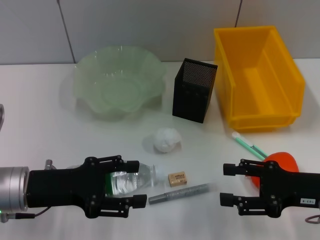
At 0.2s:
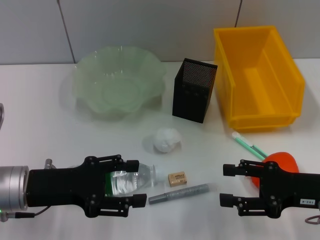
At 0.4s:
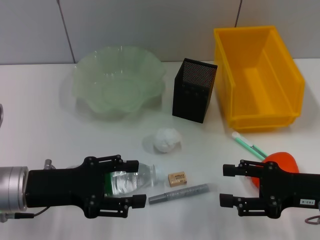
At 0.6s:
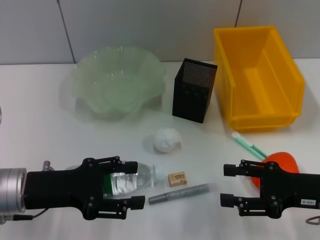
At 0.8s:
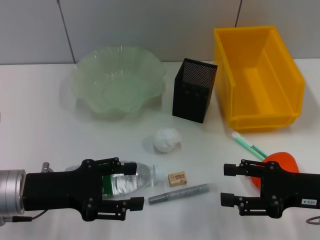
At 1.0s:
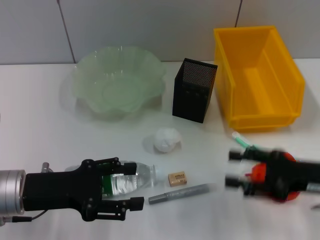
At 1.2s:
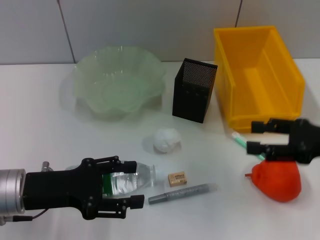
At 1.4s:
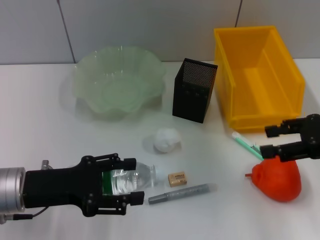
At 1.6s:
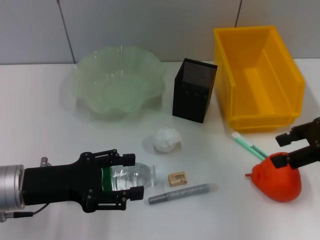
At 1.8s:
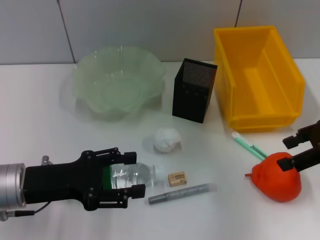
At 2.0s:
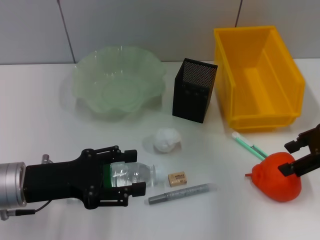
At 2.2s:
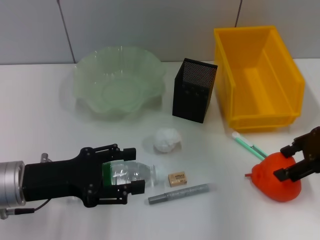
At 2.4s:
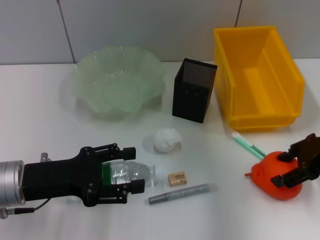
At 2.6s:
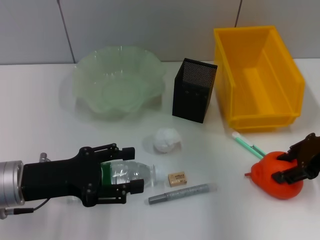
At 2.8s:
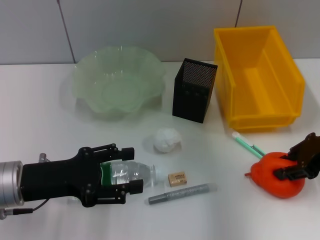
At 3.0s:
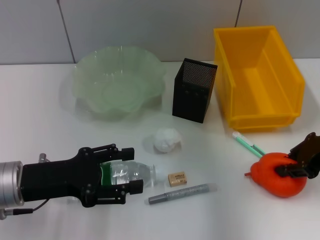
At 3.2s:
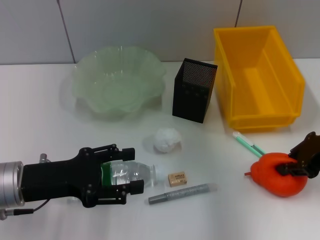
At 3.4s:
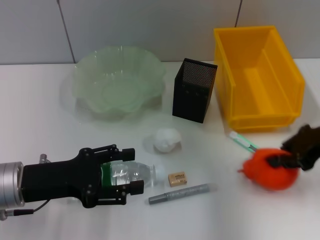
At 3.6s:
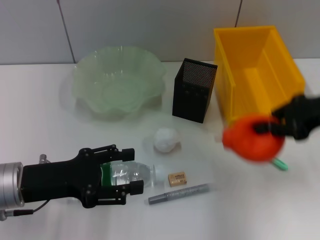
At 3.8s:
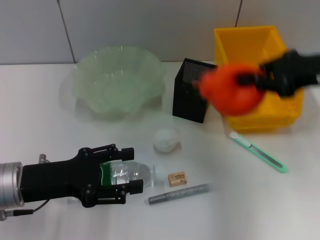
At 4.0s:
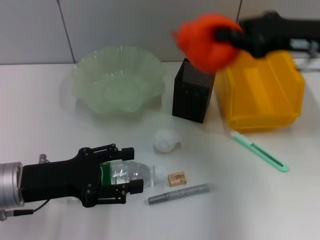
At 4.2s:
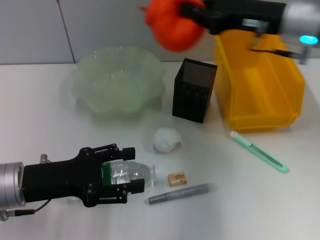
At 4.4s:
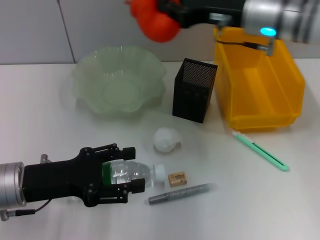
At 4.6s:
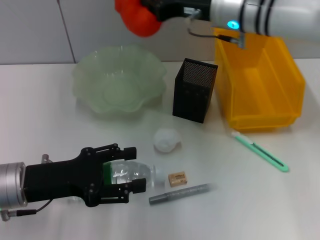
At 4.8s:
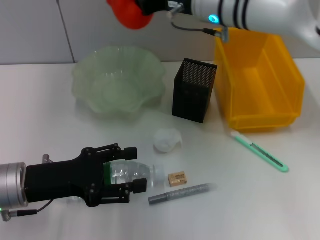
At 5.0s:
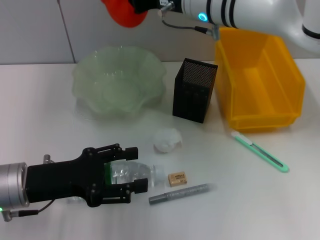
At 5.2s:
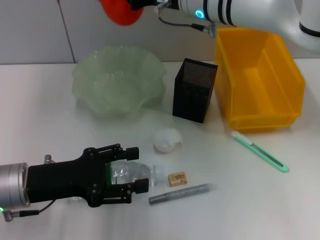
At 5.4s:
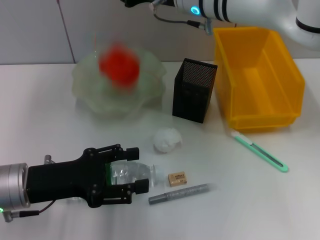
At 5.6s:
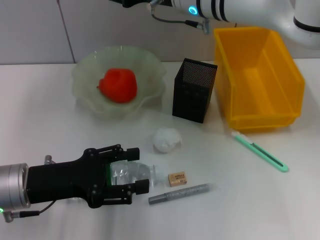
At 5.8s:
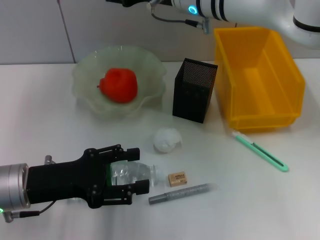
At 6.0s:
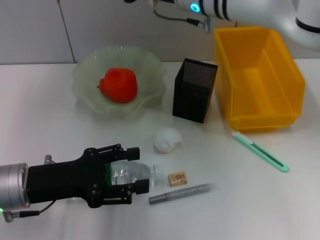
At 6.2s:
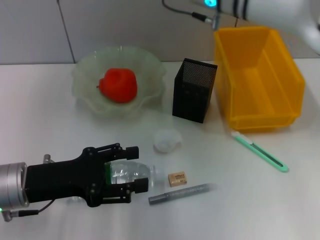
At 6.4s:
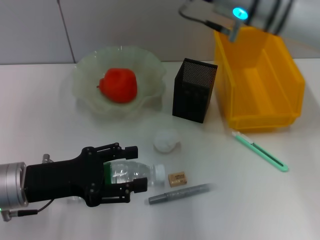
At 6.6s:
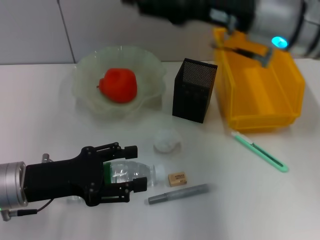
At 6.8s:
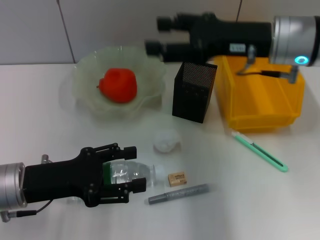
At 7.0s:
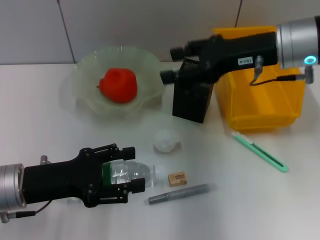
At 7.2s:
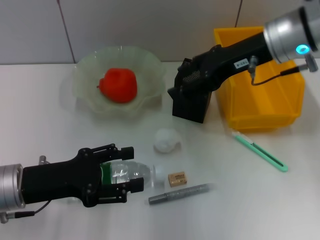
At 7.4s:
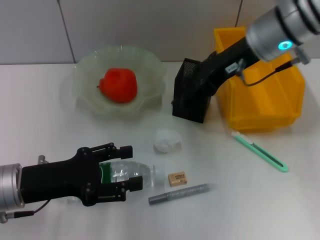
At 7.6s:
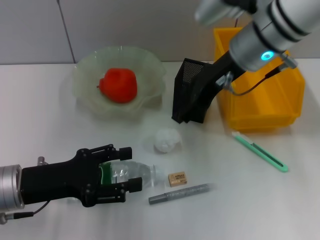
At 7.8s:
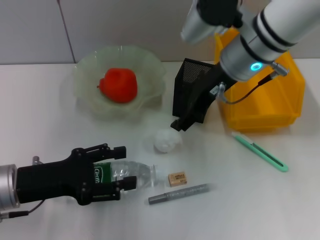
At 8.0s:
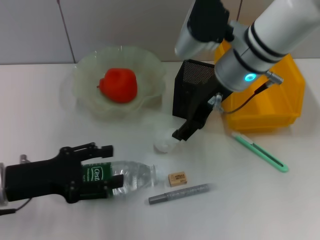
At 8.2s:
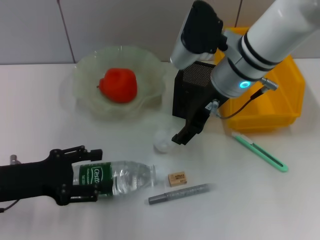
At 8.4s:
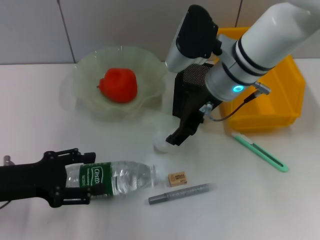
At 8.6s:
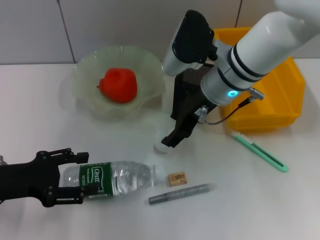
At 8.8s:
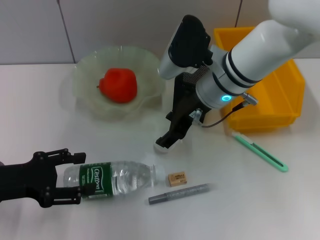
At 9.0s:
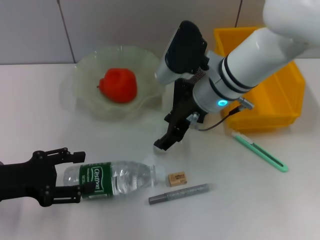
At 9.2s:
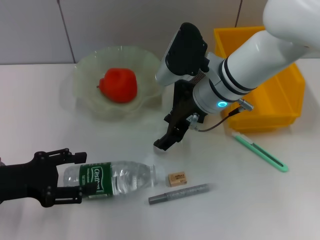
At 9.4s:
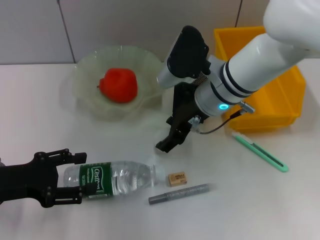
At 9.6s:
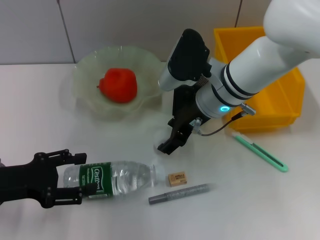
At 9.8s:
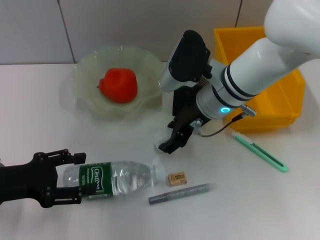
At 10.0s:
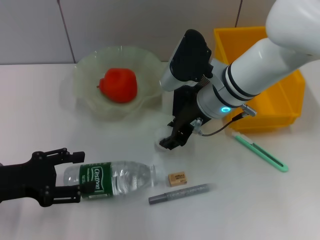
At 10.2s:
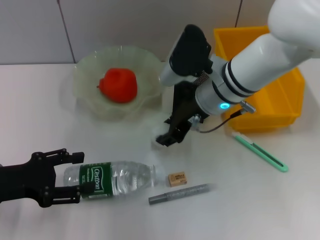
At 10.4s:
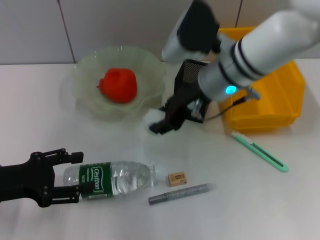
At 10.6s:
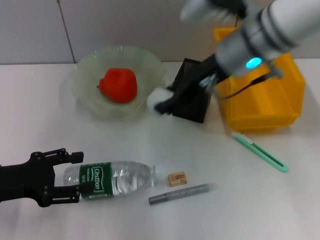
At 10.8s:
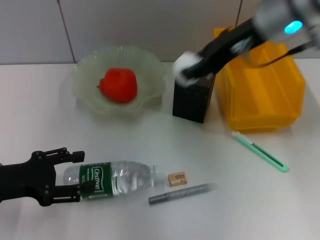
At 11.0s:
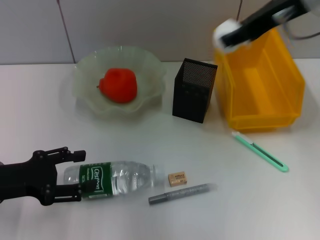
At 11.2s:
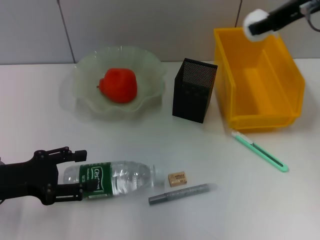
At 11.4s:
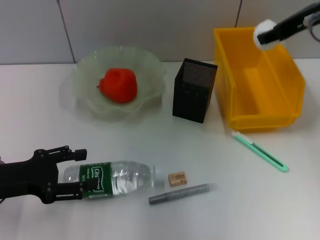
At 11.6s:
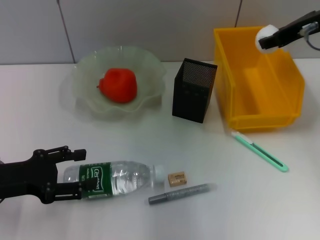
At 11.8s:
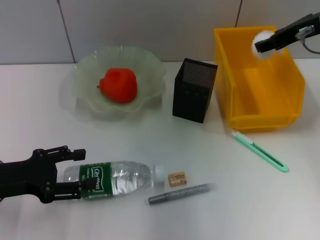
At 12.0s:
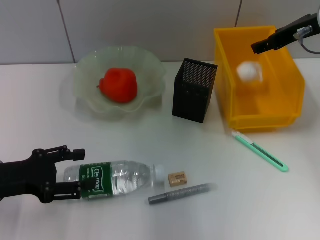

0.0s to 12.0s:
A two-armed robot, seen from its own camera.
Step, 0.0s to 3.0s: Grab the orange with the right hand.
Step, 3.2s to 5.4s: Place the orange into the fruit bowl with the right hand.
Step, 5.6s to 9.8s: Grab the paper ball with the right hand.
0.0s to 1.6s: The right gripper heads upward and forward, covering approximately 15 cm.
1.6s to 3.0s: The right gripper closes its fingers.
3.0s to 4.4s: The right gripper goes about 20 cm to the left, forward and upward, and closes its fingers.
4.4s to 6.0s: The right gripper travels to the left by roughly 10 cm, and opens its fingers.
6.0s to 7.6s: The right gripper travels to the right by some 5 cm.
7.6s to 9.0s: The right gripper heads downward, covering about 10 cm. Meanwhile the left gripper heads to the left, covering approximately 5 cm.
9.0s to 10.4s: The right gripper closes its fingers.
10.4s to 12.0s: The right gripper moves to the right, roughly 15 cm.

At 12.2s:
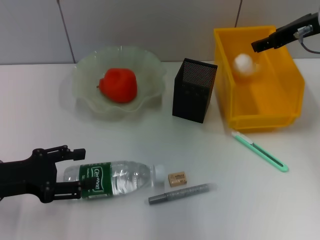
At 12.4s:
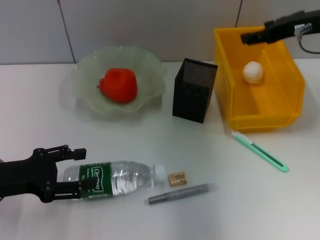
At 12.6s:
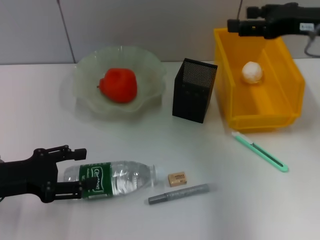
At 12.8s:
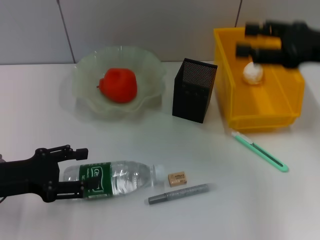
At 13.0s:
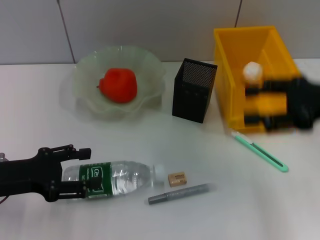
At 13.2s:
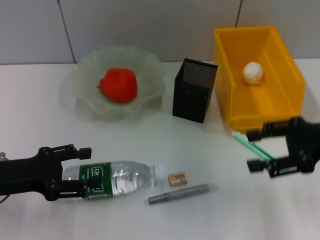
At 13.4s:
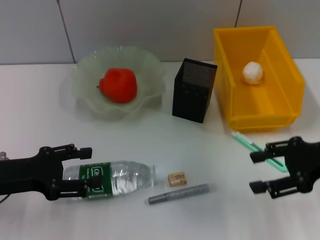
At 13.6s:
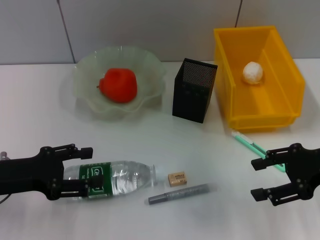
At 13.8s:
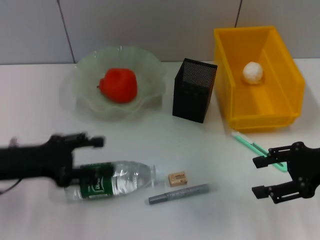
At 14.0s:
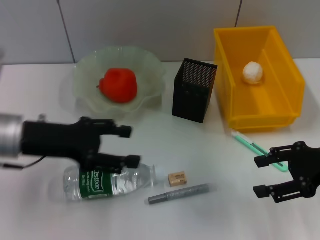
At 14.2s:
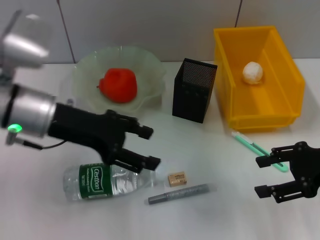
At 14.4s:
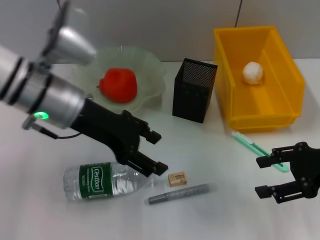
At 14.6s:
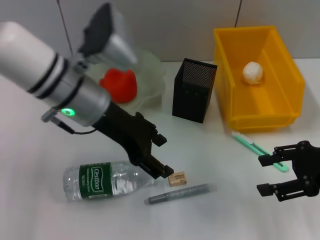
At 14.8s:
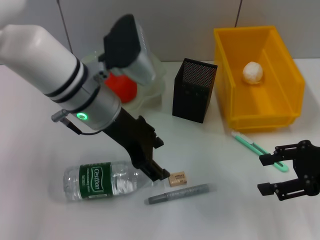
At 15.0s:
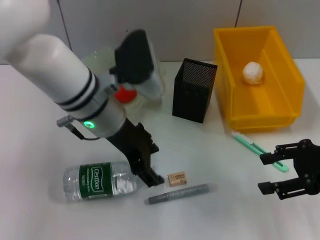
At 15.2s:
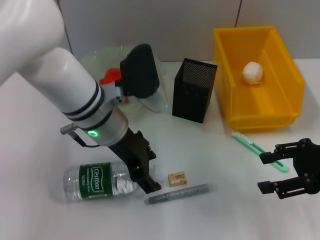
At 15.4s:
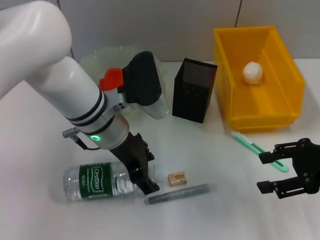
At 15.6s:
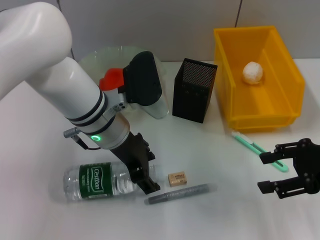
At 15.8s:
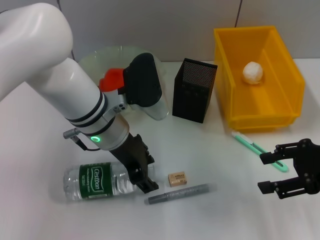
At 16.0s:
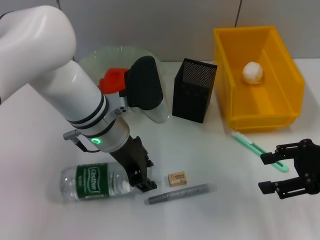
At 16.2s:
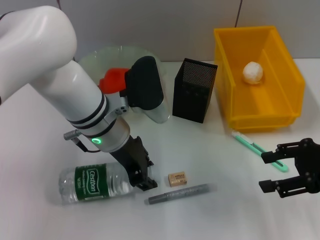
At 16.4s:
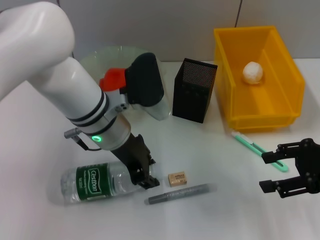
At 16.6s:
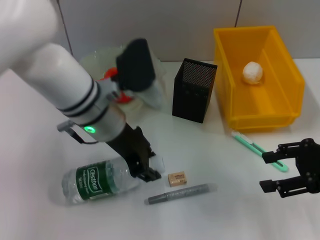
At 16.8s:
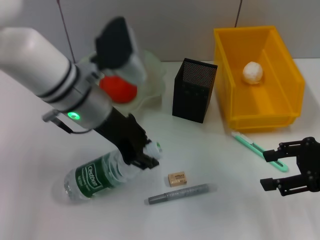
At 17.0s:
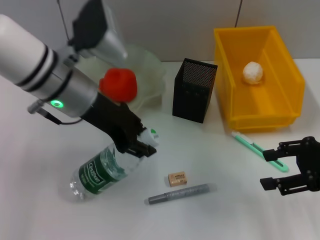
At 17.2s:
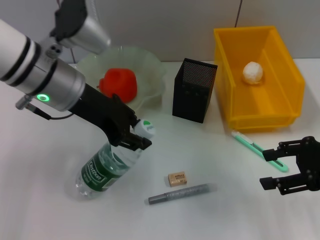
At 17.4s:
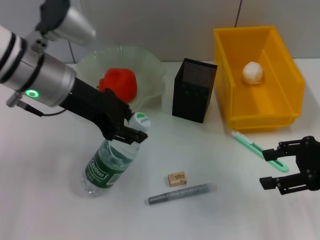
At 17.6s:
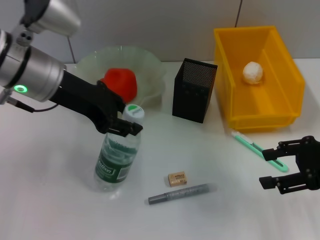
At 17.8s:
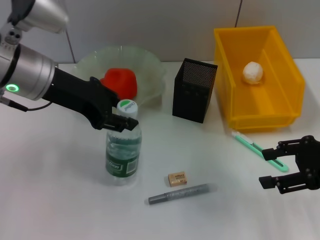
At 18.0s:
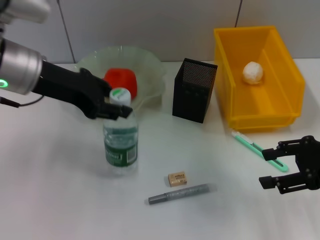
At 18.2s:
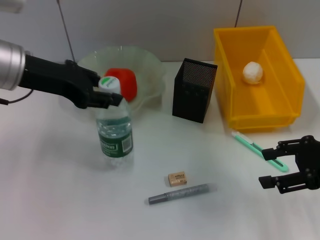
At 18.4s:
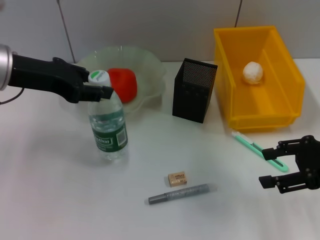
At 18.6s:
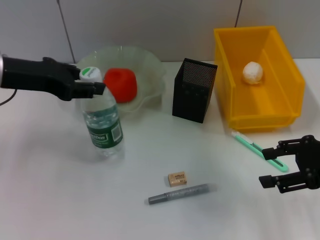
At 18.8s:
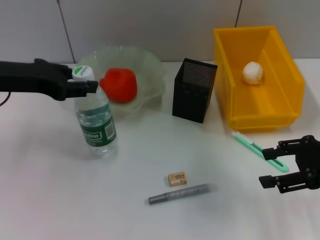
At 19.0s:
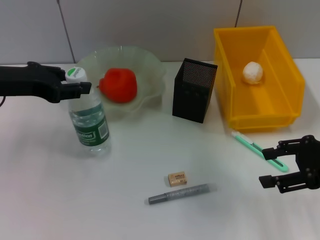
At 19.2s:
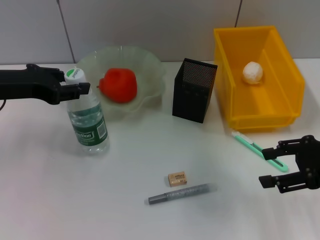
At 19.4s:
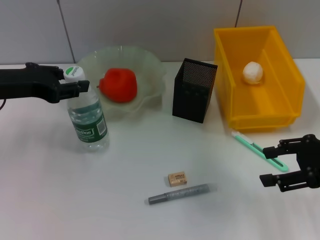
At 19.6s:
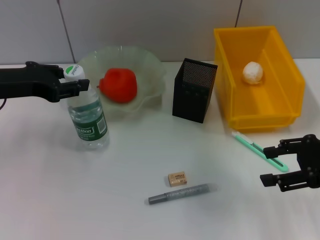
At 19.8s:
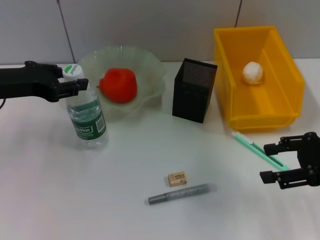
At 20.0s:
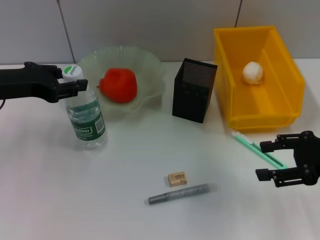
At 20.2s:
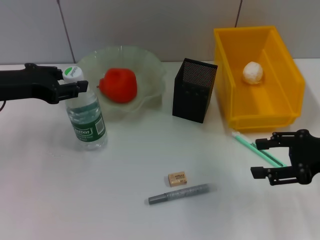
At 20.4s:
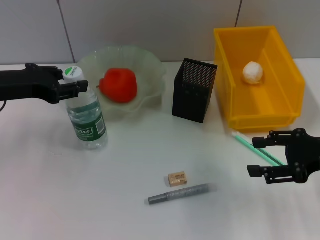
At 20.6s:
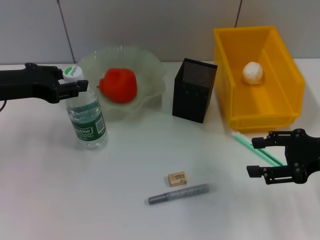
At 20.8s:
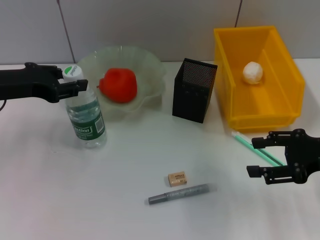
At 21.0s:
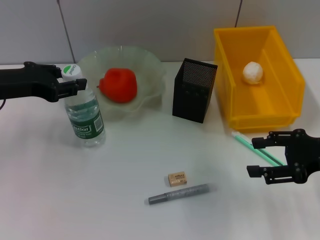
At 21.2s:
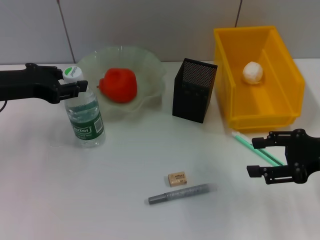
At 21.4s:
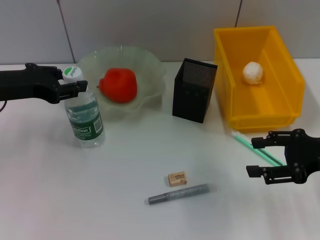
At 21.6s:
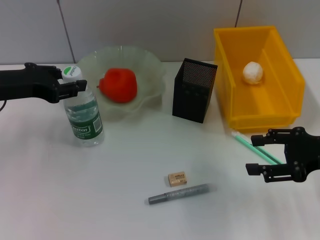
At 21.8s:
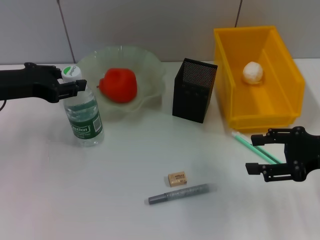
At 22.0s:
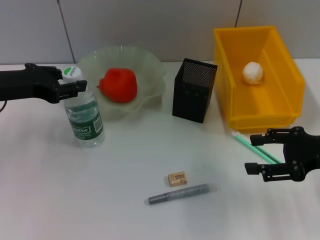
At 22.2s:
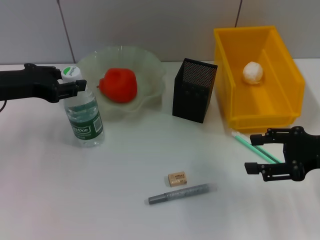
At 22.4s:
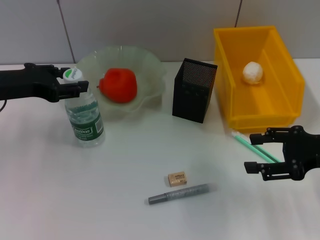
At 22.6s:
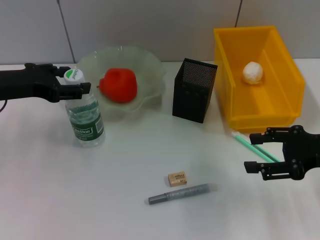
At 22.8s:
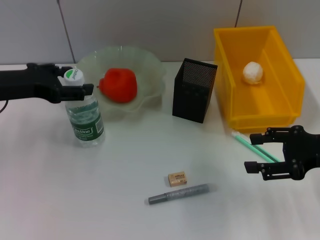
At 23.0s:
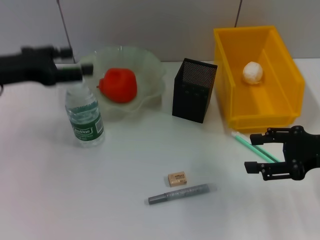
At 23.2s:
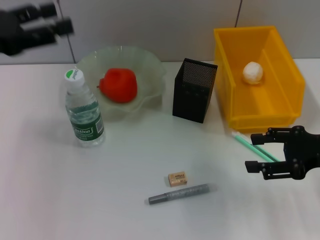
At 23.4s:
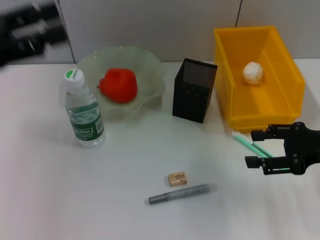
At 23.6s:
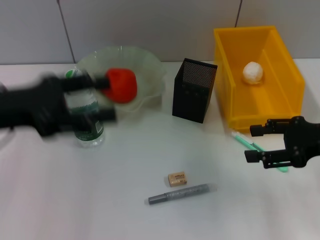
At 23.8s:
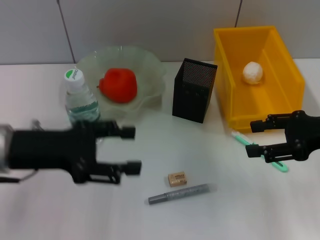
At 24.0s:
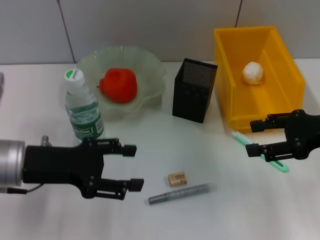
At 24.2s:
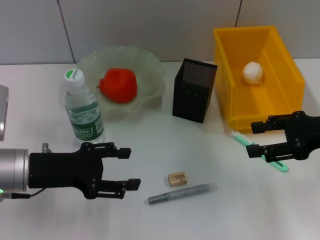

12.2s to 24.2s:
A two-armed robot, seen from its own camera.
Step, 12.4s to 16.0s: Grab the water bottle with the left hand.
Step, 16.2s to 22.6s: Place the water bottle on the table with the left hand.
12.2s to 13.8s: The right gripper is displaced backward and downward by some 15 cm.
13.8s to 15.2s: The left gripper heads to the right and forward, covering approximately 20 cm.
15.2s to 16.6s: The left gripper closes.
16.6s to 18.2s: The left gripper travels to the left and upward by about 15 cm.
18.2s to 19.8s: The left gripper shifts roughly 5 cm to the left.
19.8s to 21.2s: The grippers stay close to where they were, moving slightly.
21.2s to 22.6s: Both grippers stay about where they are.
22.6s to 24.2s: The left gripper travels downward and backward by about 10 cm.
